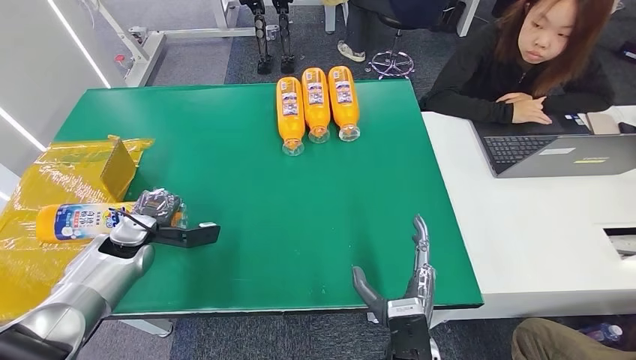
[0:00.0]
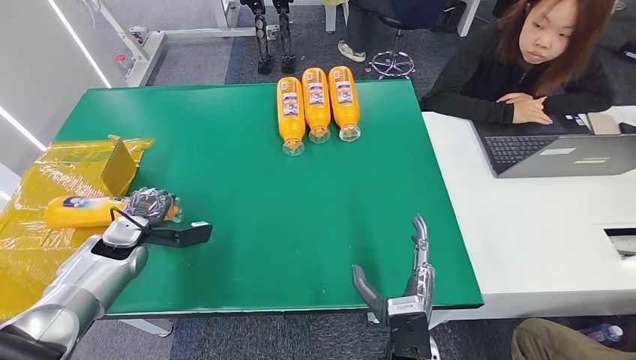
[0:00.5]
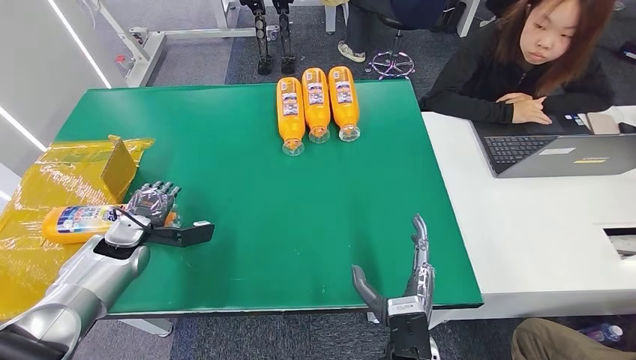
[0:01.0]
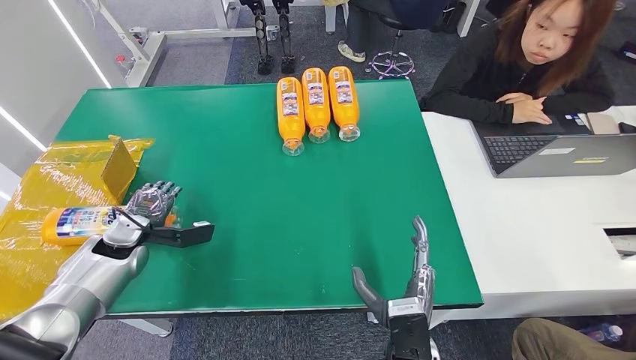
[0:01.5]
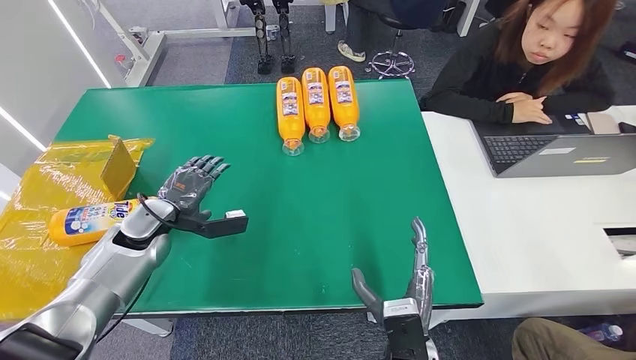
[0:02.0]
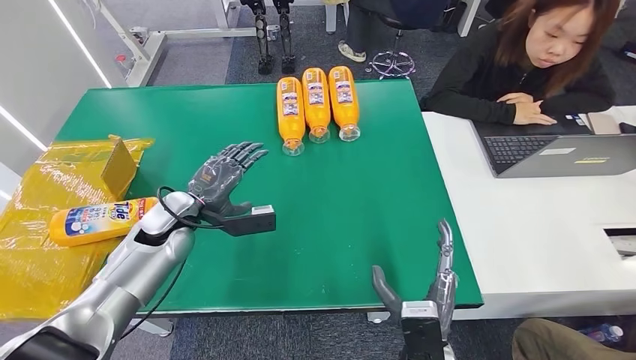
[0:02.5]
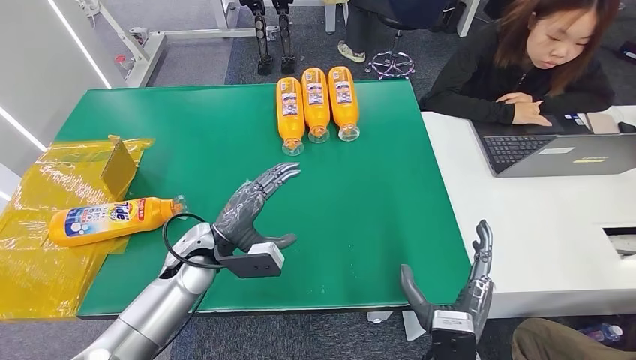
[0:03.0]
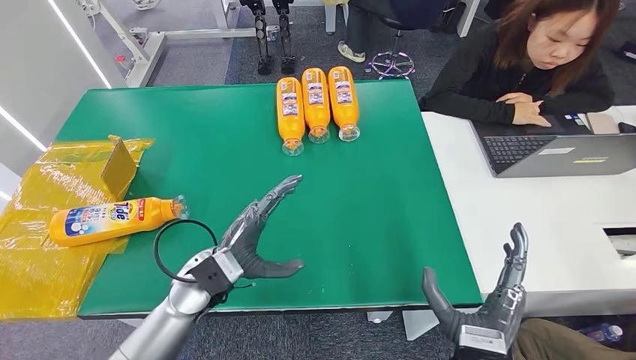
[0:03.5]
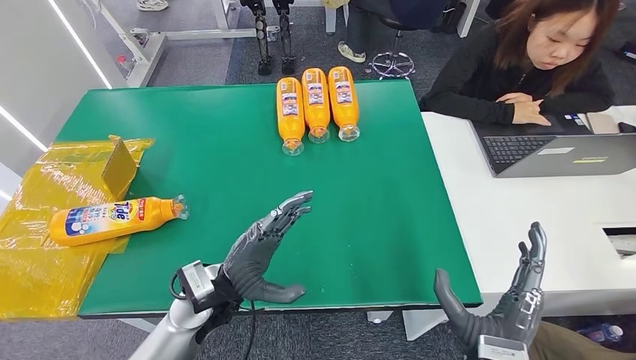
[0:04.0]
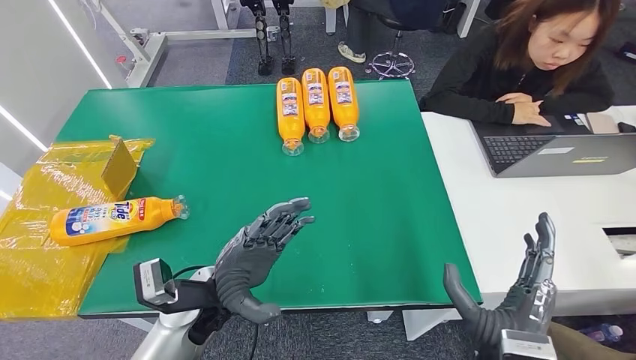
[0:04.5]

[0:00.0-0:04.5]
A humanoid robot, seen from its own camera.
Step, 0:00.0 to 0:04.5: Turn the bottle to the front side.
0:00.0 to 0:02.0: The left hand moves some 5 cm.
0:02.0 to 0:04.5: The right hand is displaced to the right and upward by roughly 10 cm. Meanwhile the left hand moves to the right and backward, about 20 cm.
